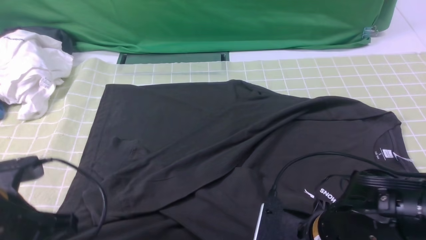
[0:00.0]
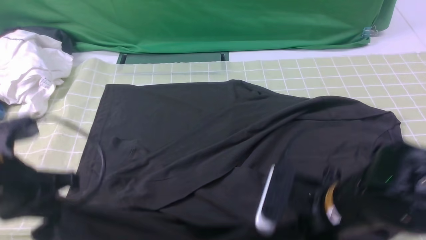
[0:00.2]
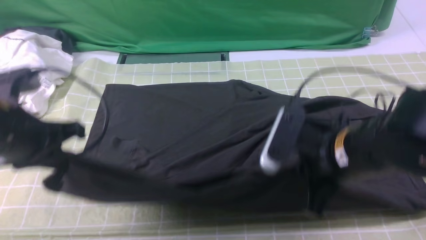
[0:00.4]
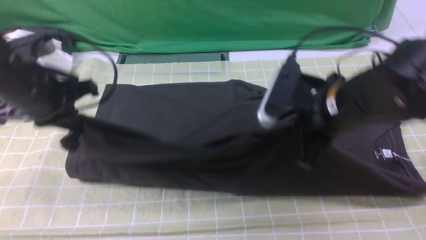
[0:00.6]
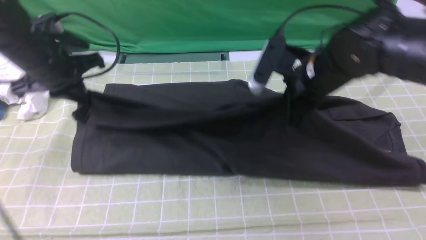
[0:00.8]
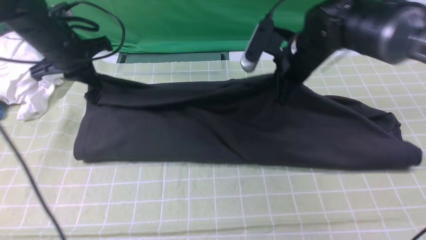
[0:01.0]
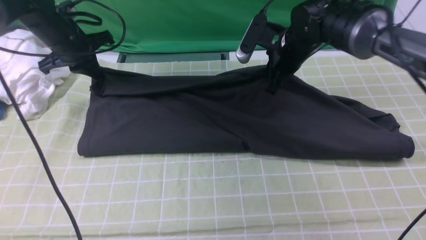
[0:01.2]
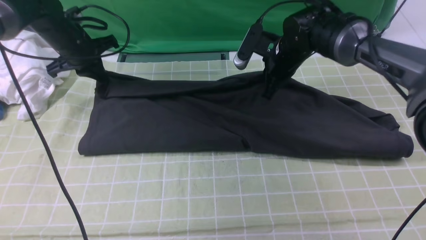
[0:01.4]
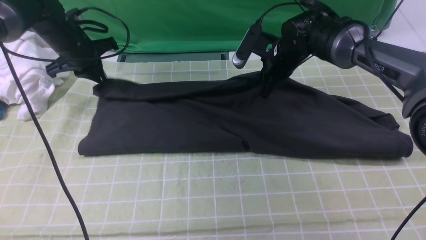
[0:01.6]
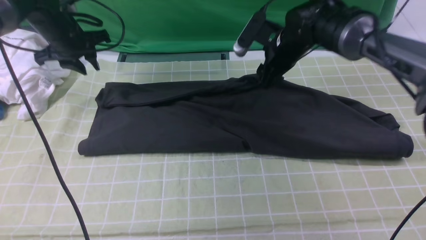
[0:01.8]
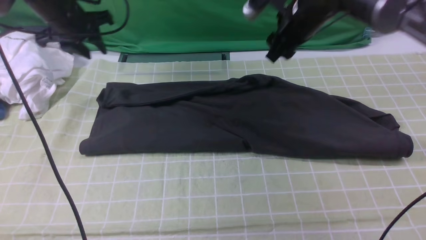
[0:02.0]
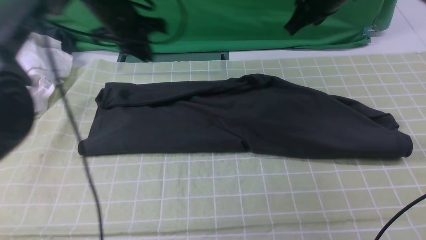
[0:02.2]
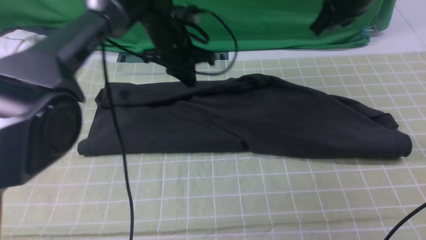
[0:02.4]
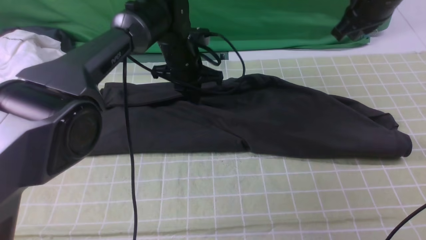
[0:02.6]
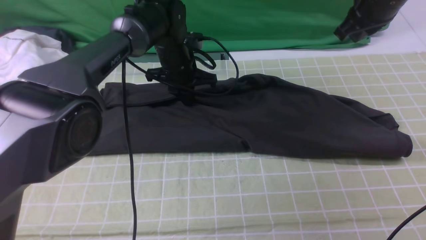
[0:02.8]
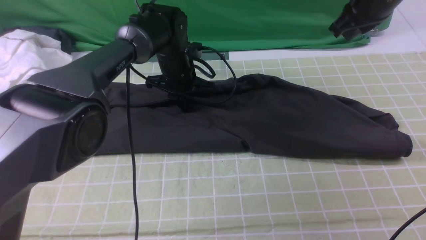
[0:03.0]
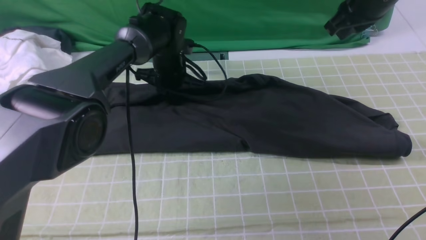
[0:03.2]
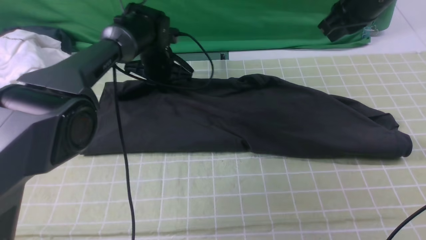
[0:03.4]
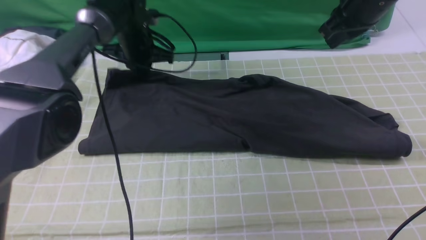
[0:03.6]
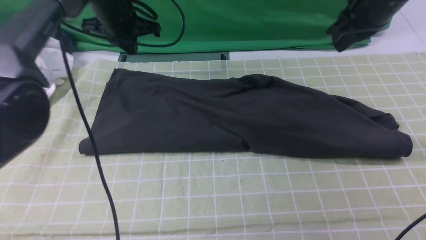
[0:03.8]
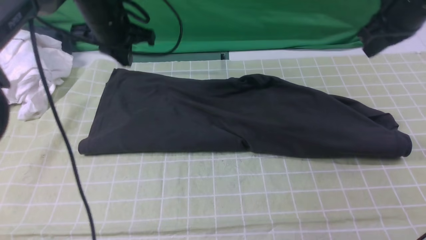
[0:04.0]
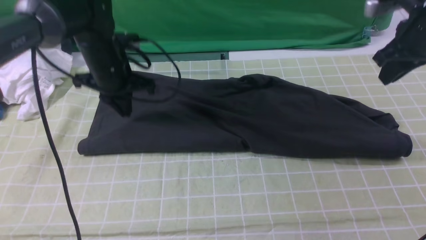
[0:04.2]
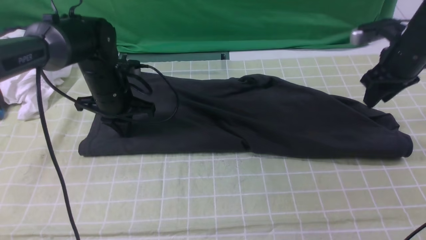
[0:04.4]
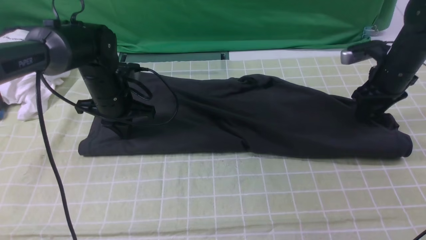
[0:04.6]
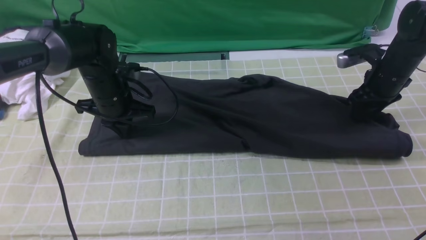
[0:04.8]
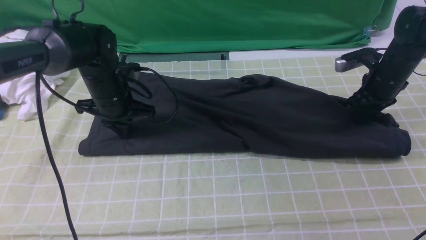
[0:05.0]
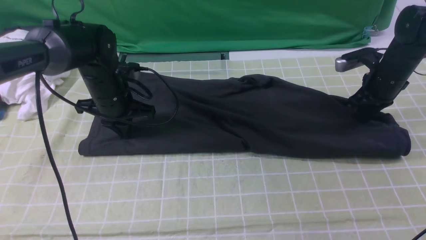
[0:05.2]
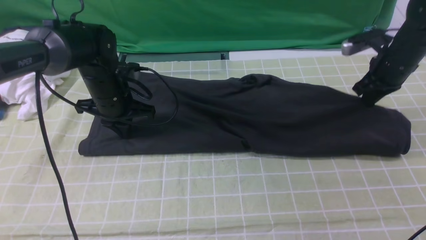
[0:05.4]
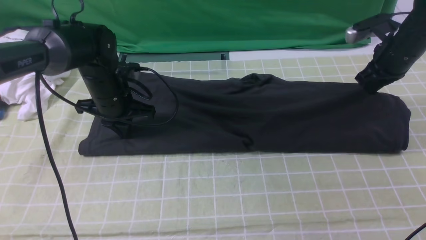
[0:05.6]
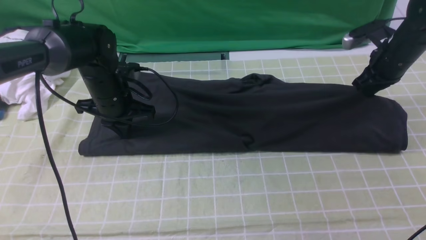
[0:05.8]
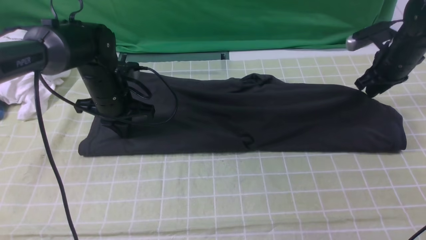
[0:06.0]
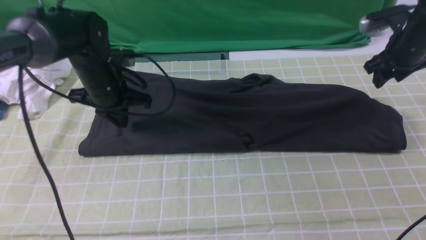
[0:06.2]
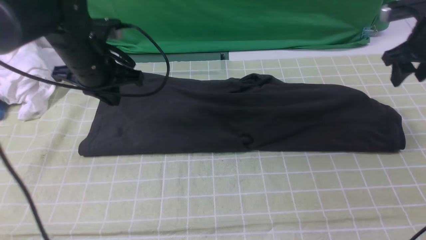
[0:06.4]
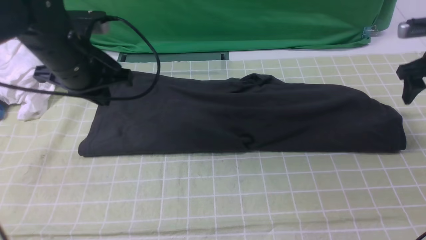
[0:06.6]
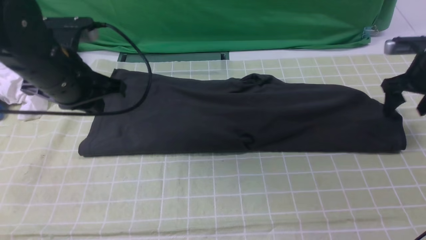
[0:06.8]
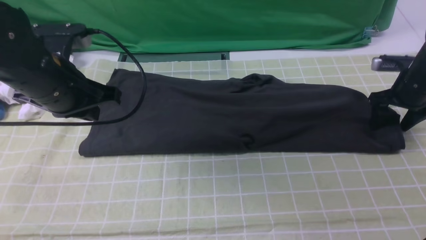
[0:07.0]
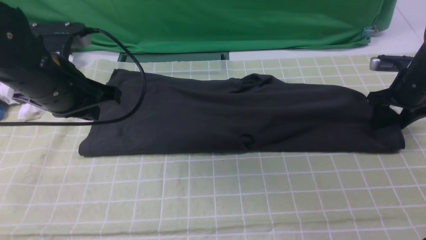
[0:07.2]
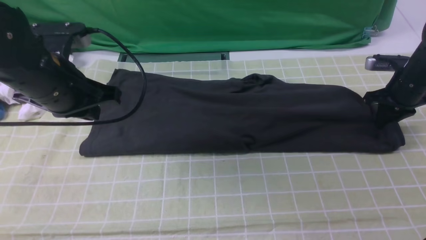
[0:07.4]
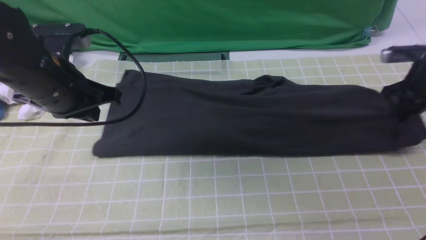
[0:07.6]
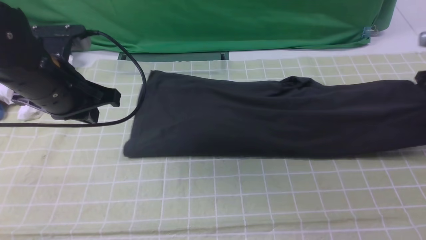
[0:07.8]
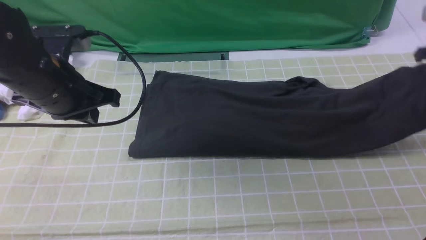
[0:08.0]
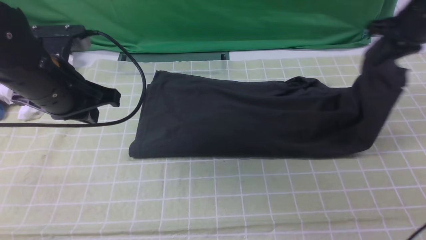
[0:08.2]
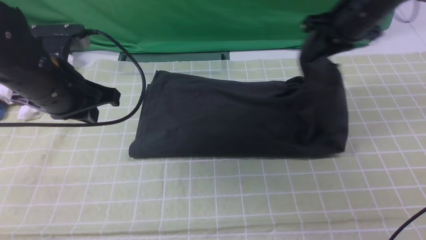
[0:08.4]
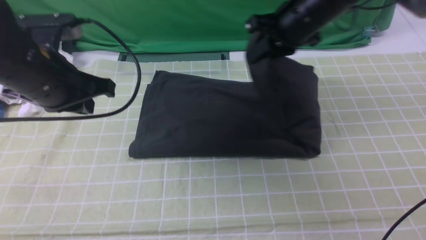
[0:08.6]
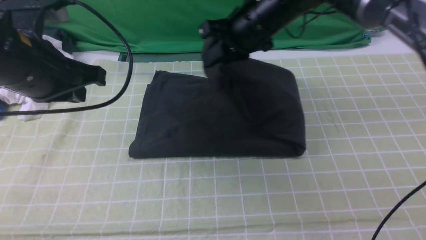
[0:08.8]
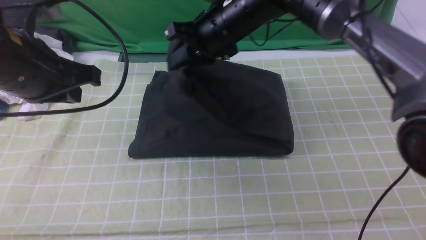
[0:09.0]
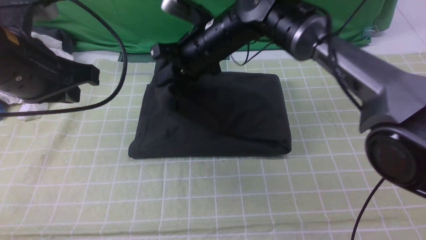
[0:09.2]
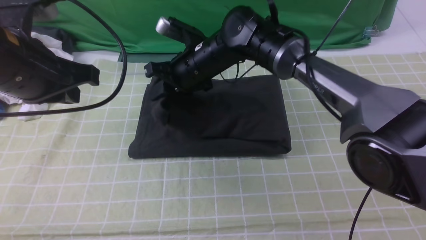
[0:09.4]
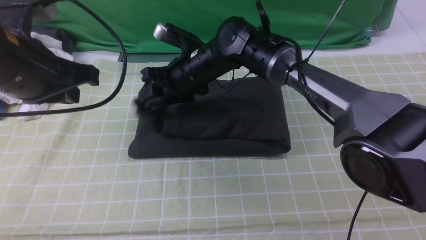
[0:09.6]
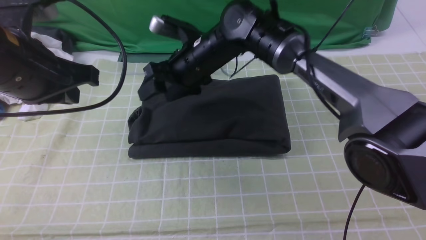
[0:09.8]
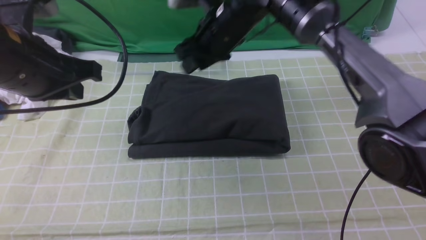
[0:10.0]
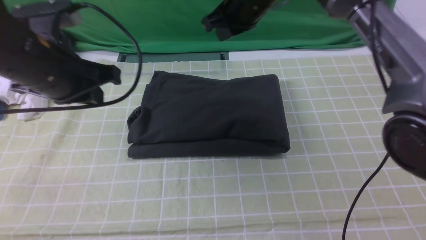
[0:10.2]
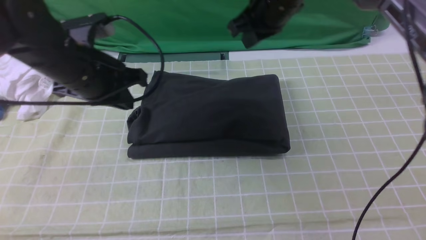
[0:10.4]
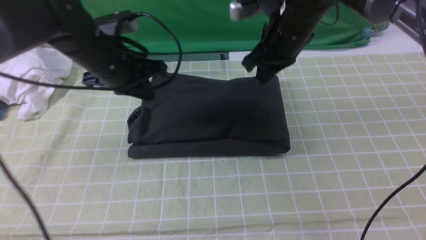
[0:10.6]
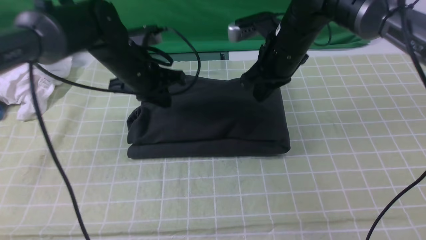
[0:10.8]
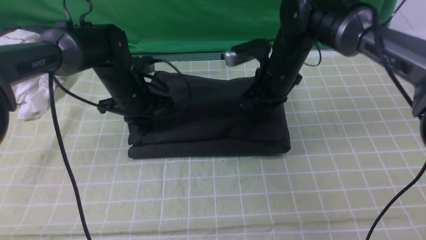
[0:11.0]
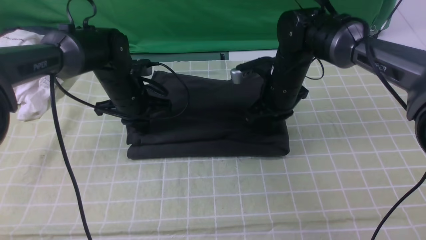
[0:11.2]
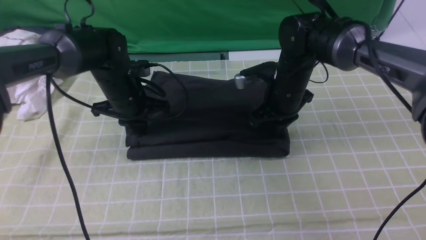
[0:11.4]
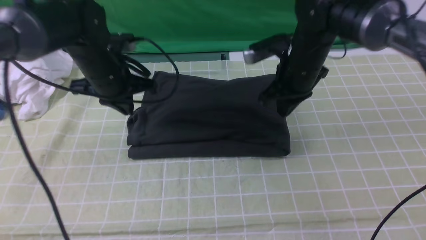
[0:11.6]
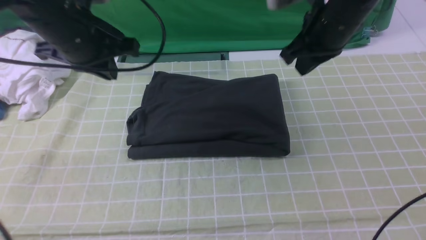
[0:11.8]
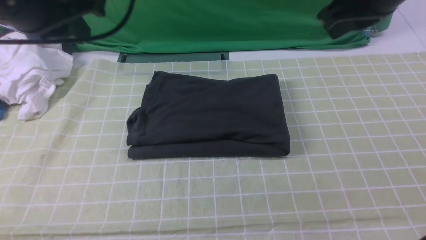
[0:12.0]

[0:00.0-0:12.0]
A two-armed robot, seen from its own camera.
Step, 0:00.0 to 0:03.6: use both arms to drag the lower edge of the fabric forward and fold it over the upper edge.
Step, 0:03.8 to 0:07.4: use the right arm to clamp the right edge of the fabric.
Step, 0:07.6 to 0:09.8: use the right arm to drag the right edge of the fabric to the left and folds it over the left edge.
0:00.0 to 0:01.6: Both grippers travel together forward, roughly 30 cm.
0:01.6 to 0:03.0: The left gripper shifts some 20 cm to the right; the right gripper shifts some 20 cm upward and to the right, and closes its fingers.
0:03.0 to 0:04.4: The right gripper shifts roughly 15 cm downward and to the right, and opens up, while the left gripper shifts some 10 cm to the left and backward.
0:04.4 to 0:06.0: The right gripper closes, then reopens.
0:06.0 to 0:07.6: The right gripper travels to the right by roughly 5 cm, moves about 5 cm downward and comes back, and opens, then closes once more. The left gripper travels backward and upward by roughly 15 cm.
0:07.6 to 0:09.0: The left gripper changes place by approximately 5 cm. Meanwhile the right gripper goes approximately 35 cm to the left.
0:09.0 to 0:10.4: The left gripper moves forward and downward, approximately 10 cm. Meanwhile the right gripper heads to the right, covering roughly 5 cm, and opens, then closes once more.
0:10.4 to 0:12.0: The right gripper moves backward, upward and to the right, approximately 20 cm. The left gripper travels upward and backward by approximately 15 cm.

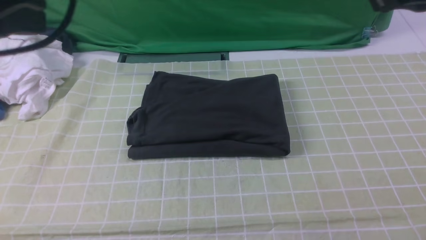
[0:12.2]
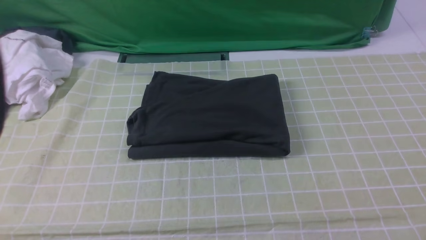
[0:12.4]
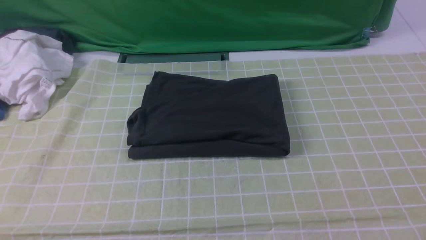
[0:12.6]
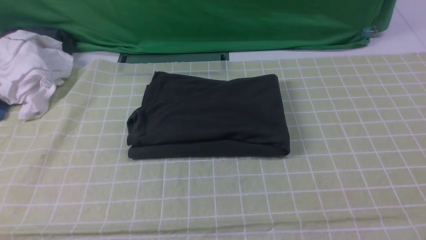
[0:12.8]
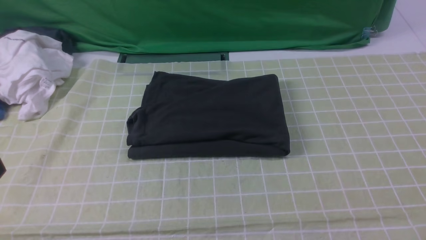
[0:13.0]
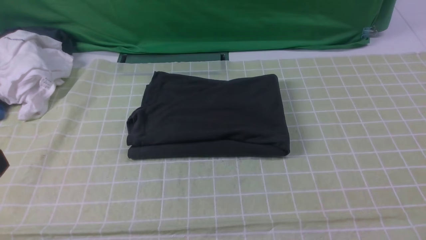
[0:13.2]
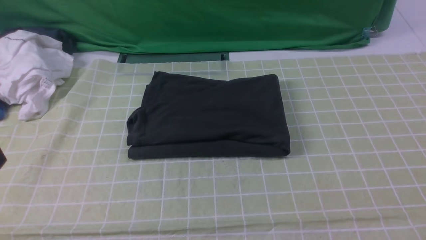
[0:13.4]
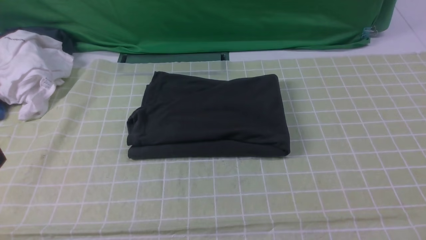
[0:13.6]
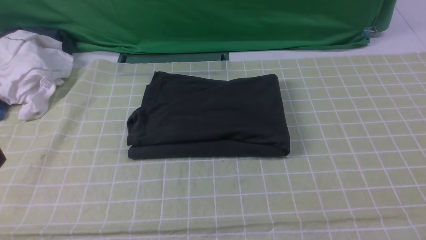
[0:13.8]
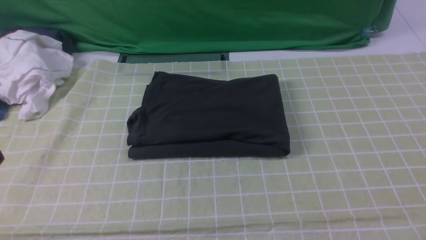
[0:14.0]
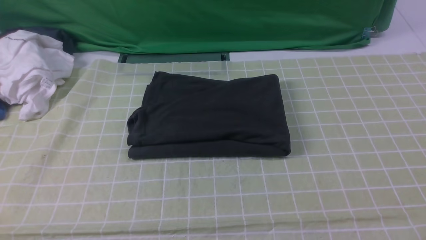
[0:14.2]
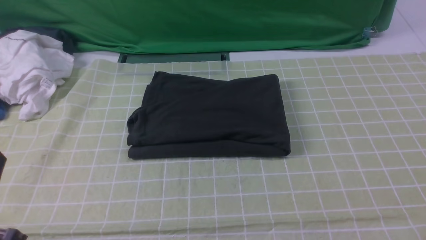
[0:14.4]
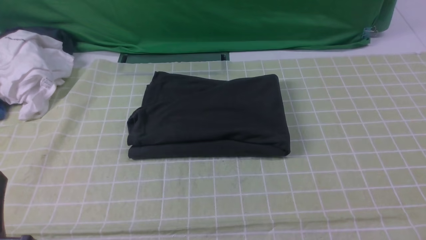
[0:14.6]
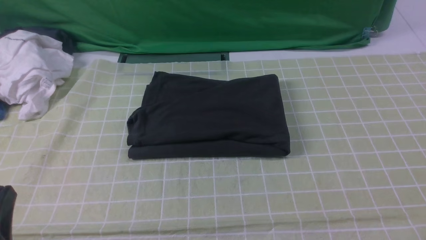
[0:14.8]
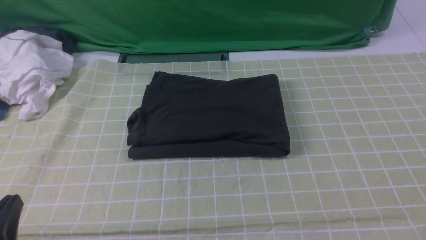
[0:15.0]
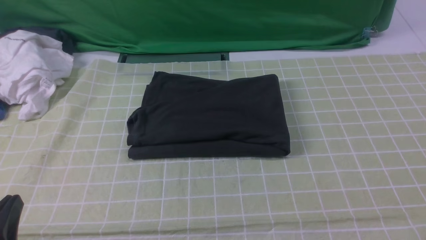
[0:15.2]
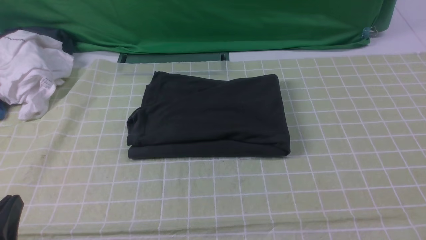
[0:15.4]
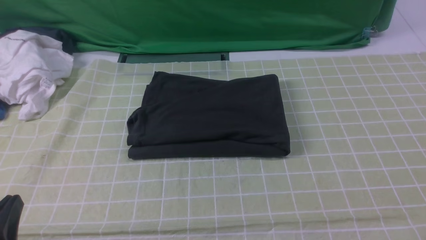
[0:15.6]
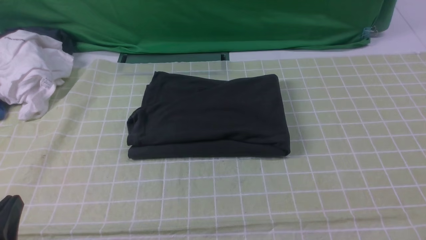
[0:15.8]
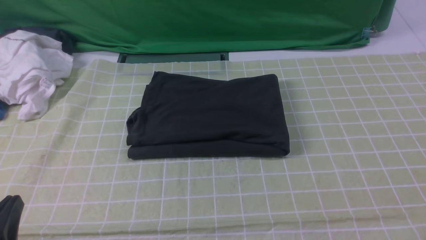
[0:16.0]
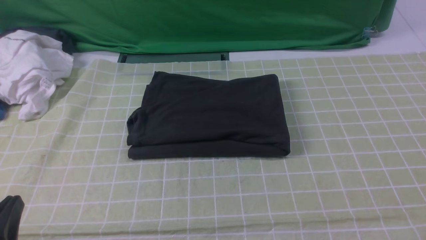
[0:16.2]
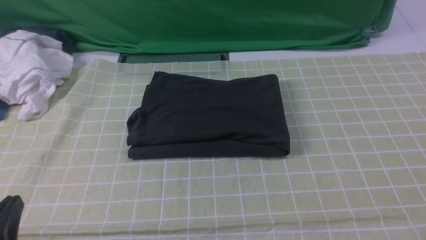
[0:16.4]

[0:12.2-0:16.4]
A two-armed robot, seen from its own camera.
0:12.2 to 0:13.6: The left gripper is displaced backward and downward by roughly 15 cm.
0:13.6 to 0:15.0: The left gripper moves downward, approximately 15 cm.
